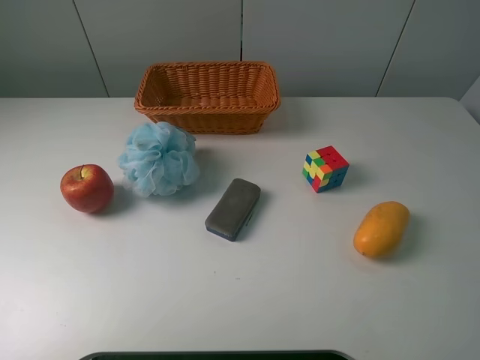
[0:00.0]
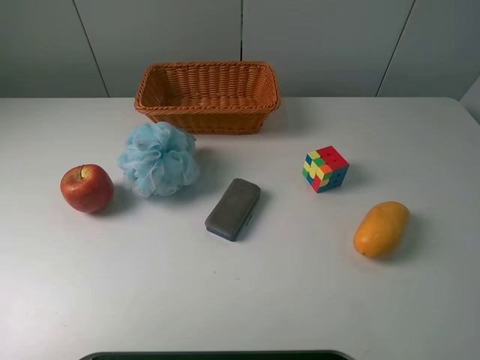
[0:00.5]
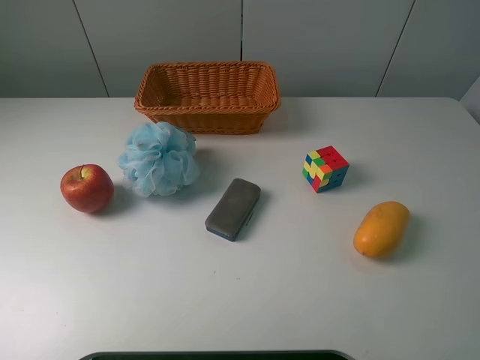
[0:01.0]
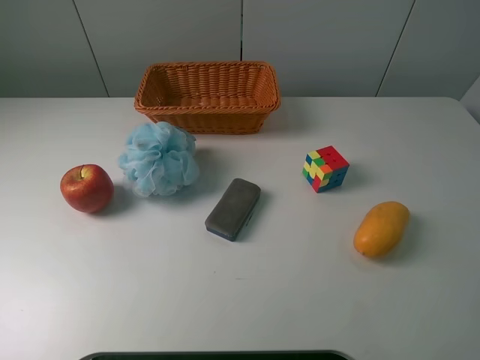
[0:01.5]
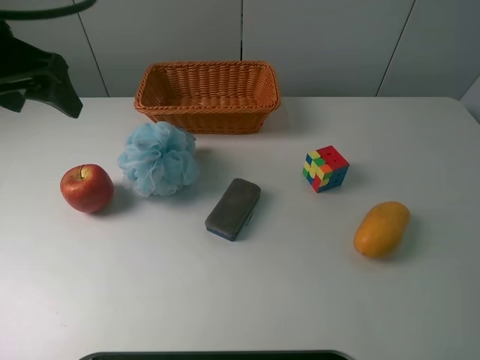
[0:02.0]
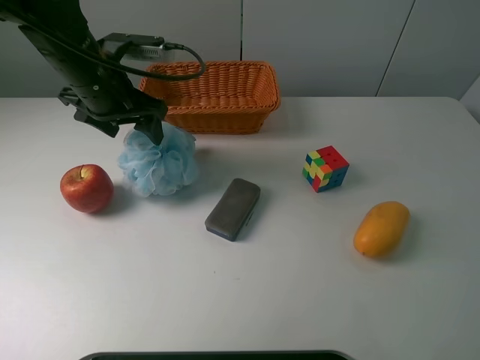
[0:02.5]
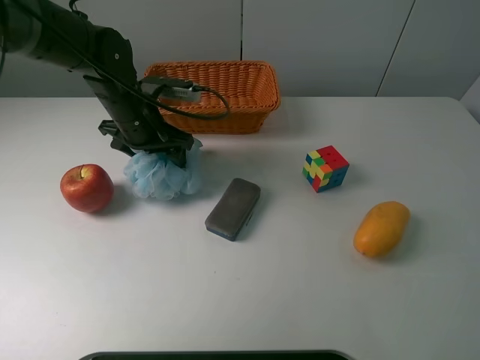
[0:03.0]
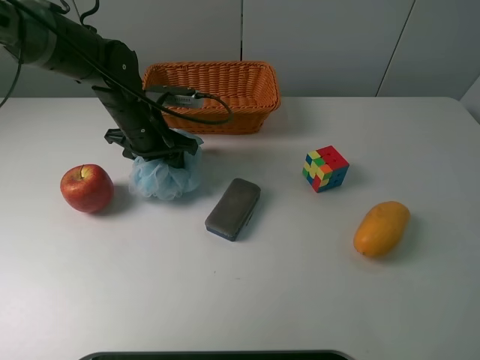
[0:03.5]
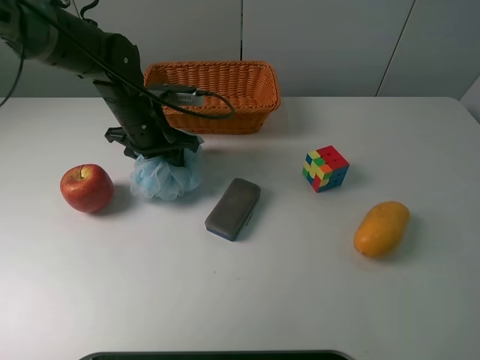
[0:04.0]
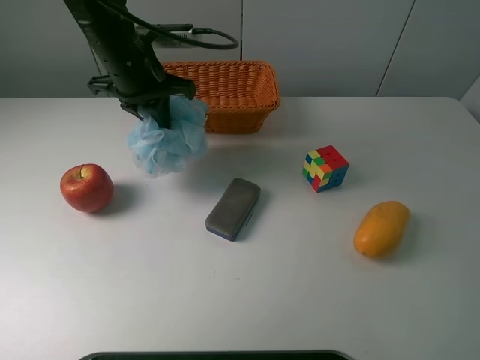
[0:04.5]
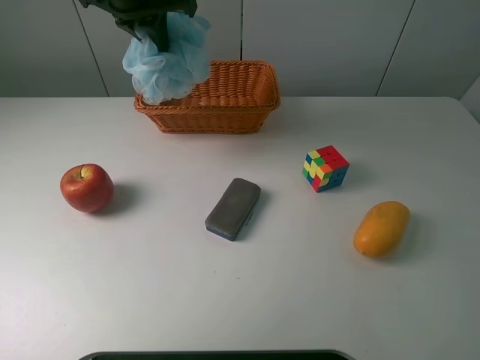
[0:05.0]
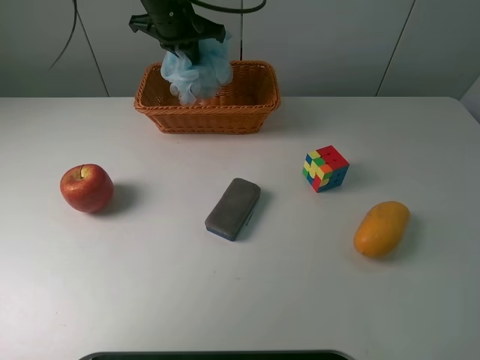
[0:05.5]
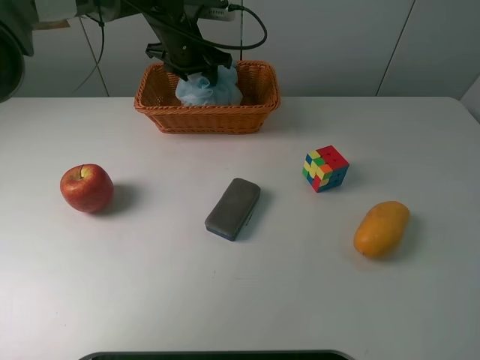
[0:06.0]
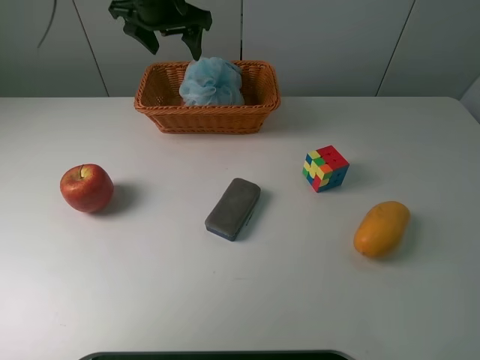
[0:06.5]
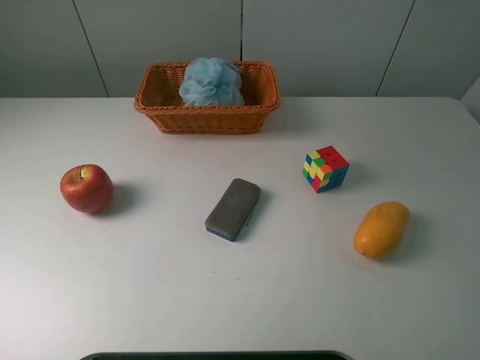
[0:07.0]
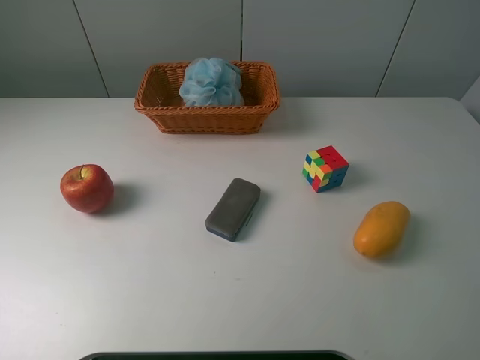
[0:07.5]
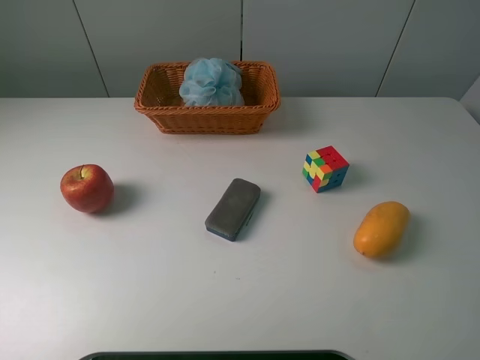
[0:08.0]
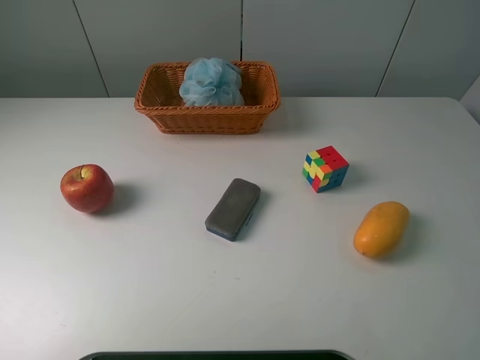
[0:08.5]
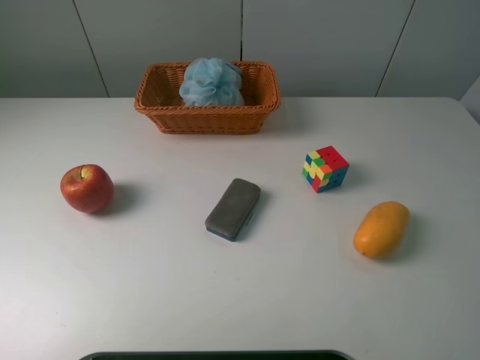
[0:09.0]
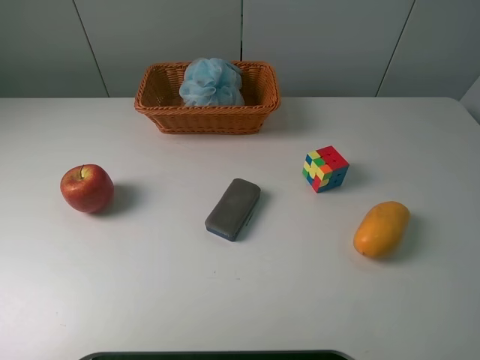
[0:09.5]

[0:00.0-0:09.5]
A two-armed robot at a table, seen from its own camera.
Task of the whole recording: use a picker to grab the item closest to the apple and place it in the basket.
Step, 0:00.0 to 0:03.5: Grasp the shower sphere with the left gripper.
Step, 0:04.0 to 0:06.5: Place the shower sphere into the basket with the left gripper.
0:00.0 to 0:02.0: The left gripper heads forward, covering approximately 25 cm.
0:02.0 to 0:04.0: The left gripper moves downward, to the right and forward, some 20 cm, and closes.
0:04.0 to 0:05.5: The left gripper moves forward and upward, approximately 15 cm, and closes its fingers.
0:05.5 to 0:07.5: The left gripper travels backward, to the left and upward by some 40 cm, and opens up.
